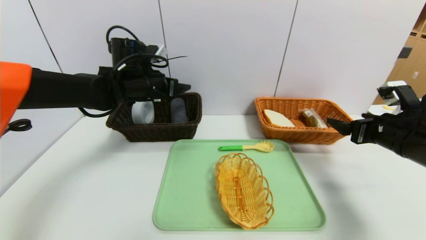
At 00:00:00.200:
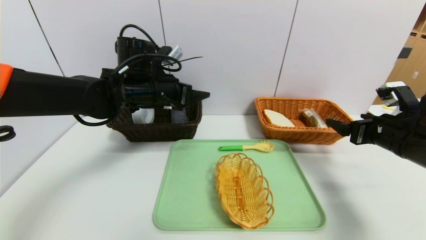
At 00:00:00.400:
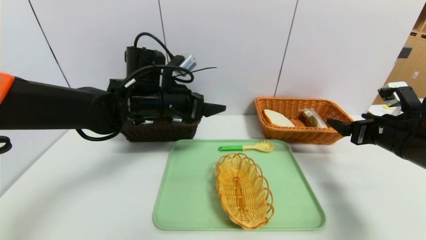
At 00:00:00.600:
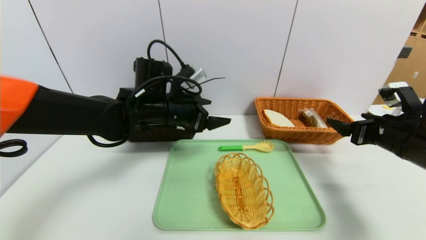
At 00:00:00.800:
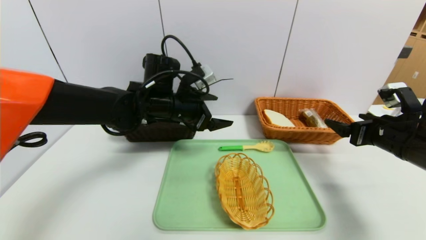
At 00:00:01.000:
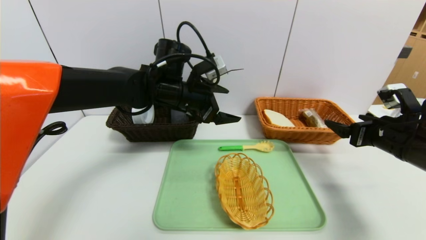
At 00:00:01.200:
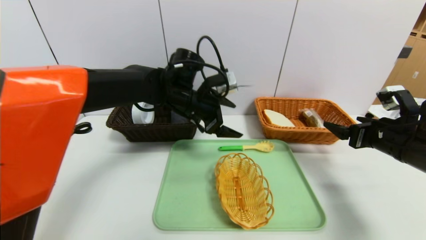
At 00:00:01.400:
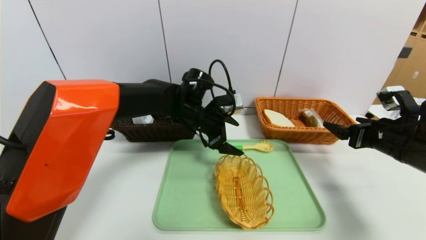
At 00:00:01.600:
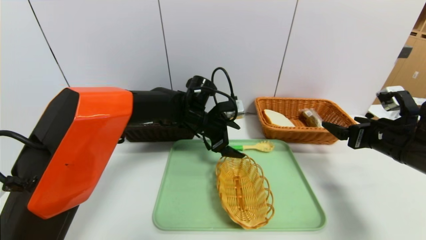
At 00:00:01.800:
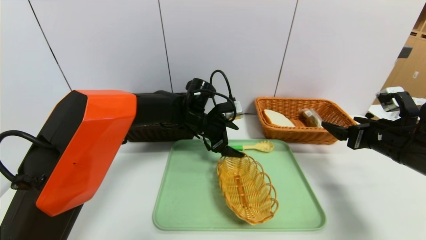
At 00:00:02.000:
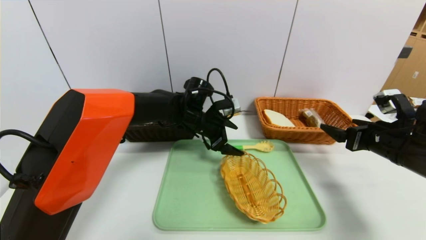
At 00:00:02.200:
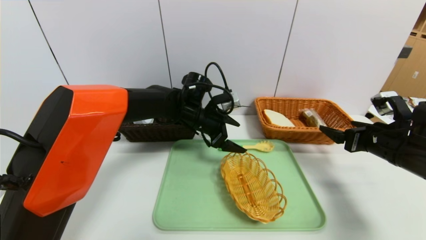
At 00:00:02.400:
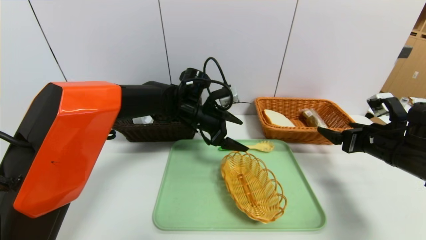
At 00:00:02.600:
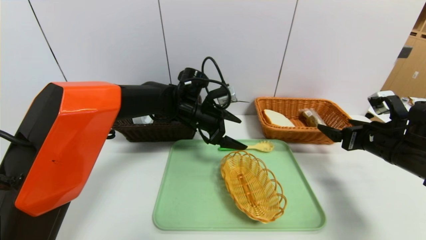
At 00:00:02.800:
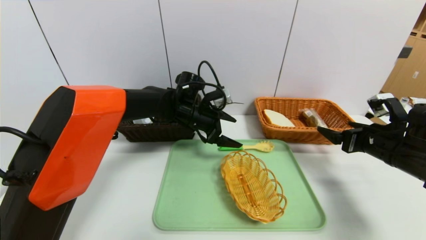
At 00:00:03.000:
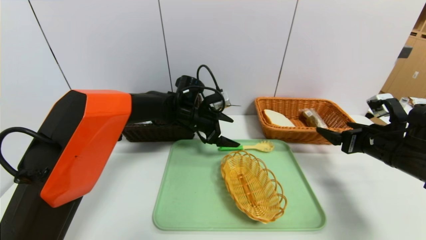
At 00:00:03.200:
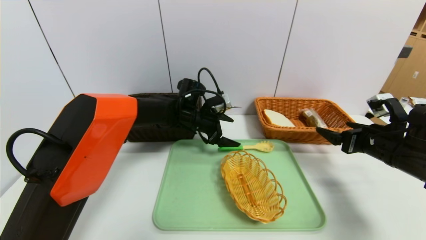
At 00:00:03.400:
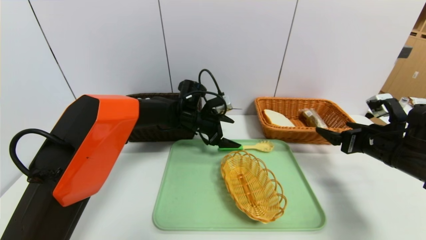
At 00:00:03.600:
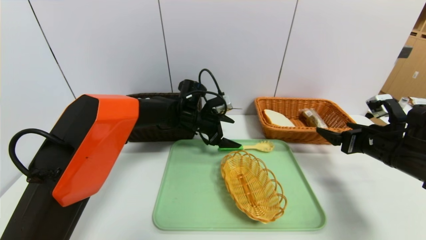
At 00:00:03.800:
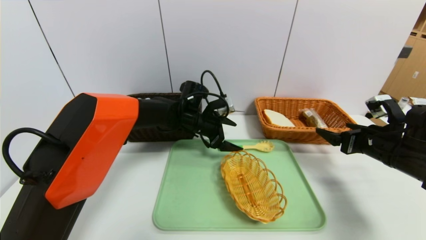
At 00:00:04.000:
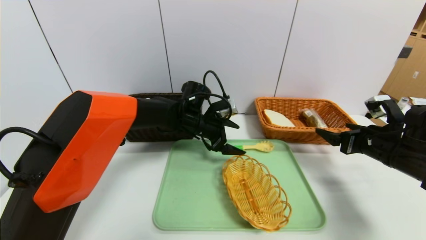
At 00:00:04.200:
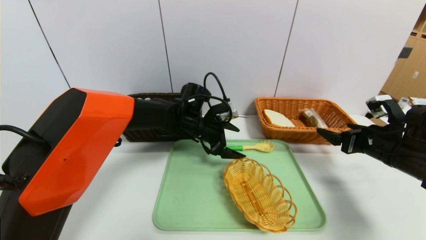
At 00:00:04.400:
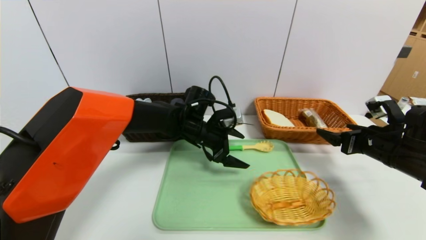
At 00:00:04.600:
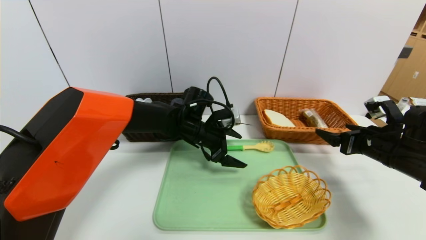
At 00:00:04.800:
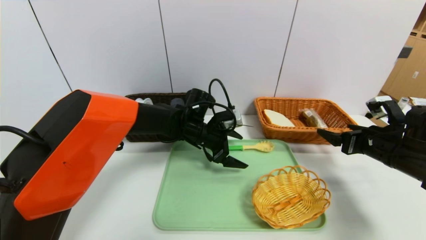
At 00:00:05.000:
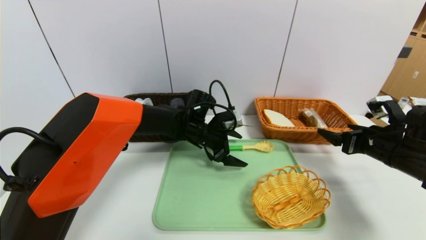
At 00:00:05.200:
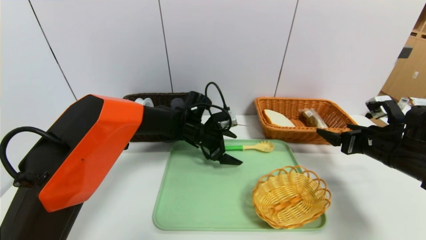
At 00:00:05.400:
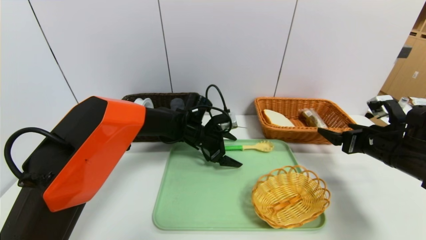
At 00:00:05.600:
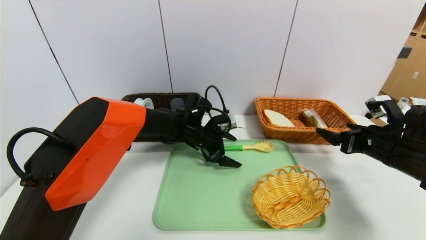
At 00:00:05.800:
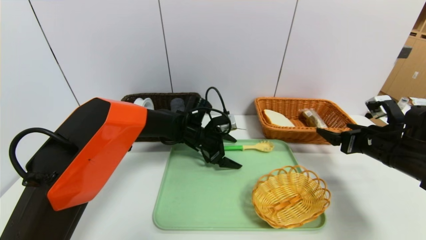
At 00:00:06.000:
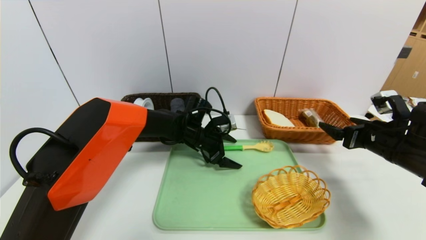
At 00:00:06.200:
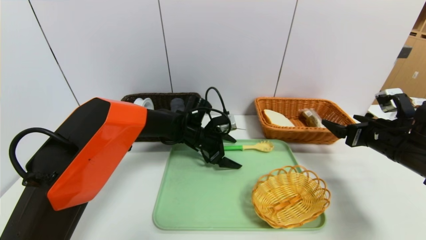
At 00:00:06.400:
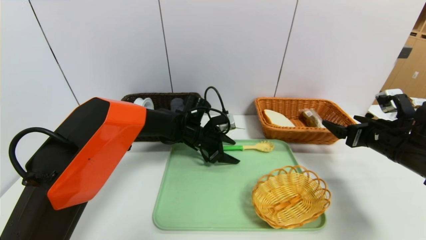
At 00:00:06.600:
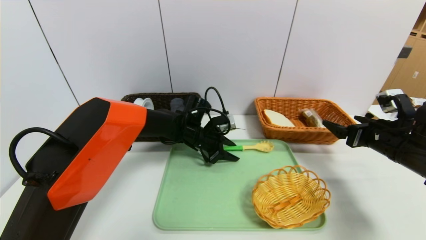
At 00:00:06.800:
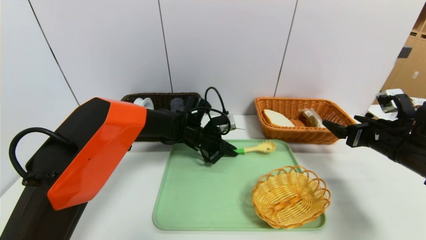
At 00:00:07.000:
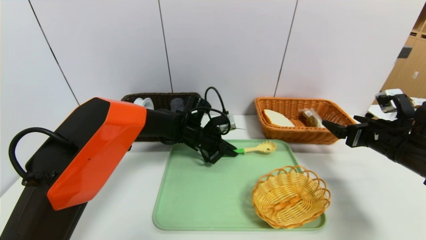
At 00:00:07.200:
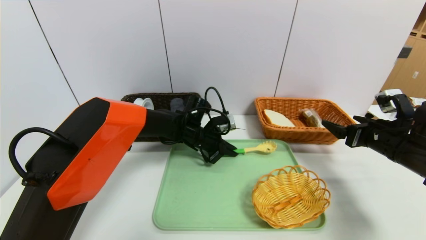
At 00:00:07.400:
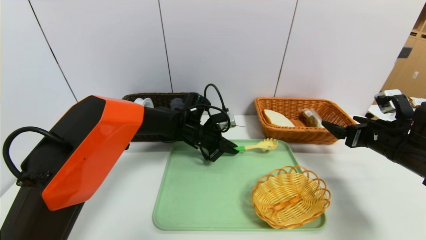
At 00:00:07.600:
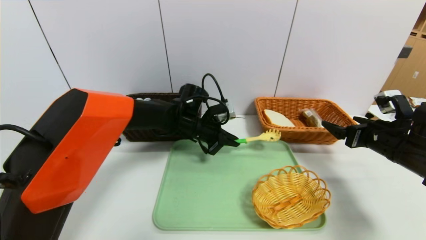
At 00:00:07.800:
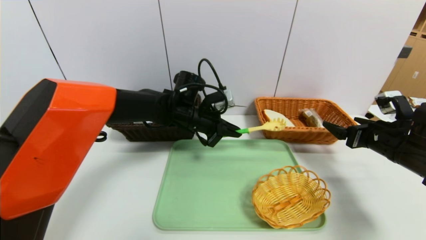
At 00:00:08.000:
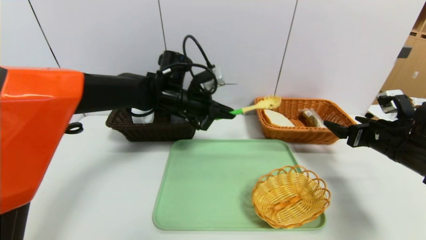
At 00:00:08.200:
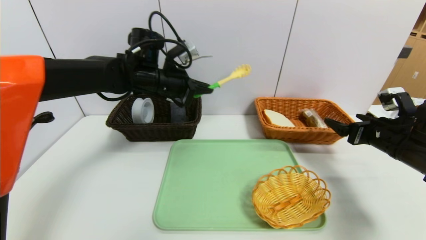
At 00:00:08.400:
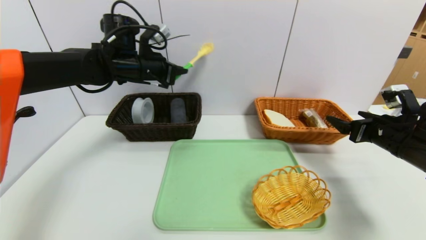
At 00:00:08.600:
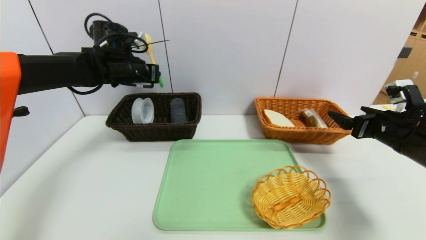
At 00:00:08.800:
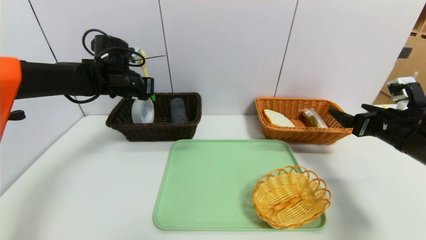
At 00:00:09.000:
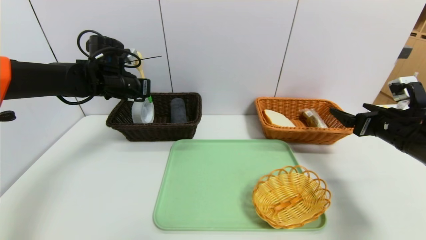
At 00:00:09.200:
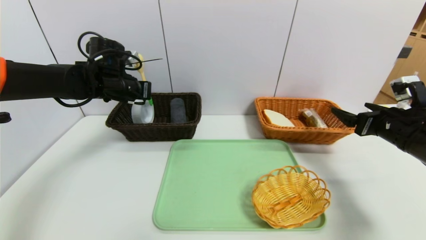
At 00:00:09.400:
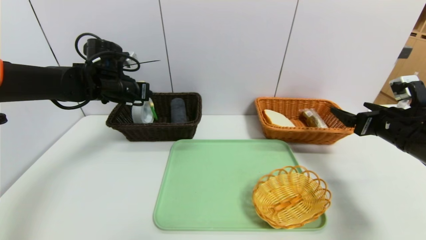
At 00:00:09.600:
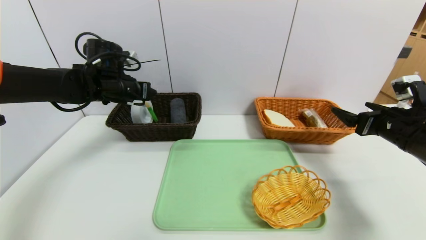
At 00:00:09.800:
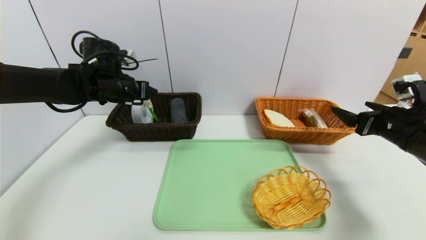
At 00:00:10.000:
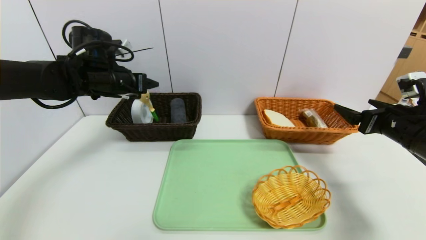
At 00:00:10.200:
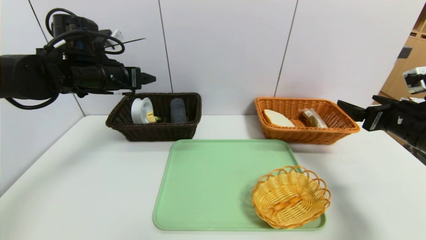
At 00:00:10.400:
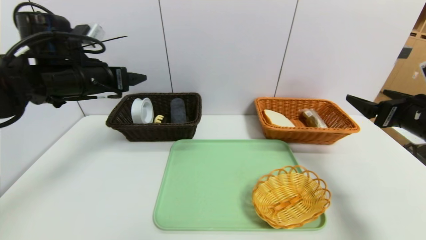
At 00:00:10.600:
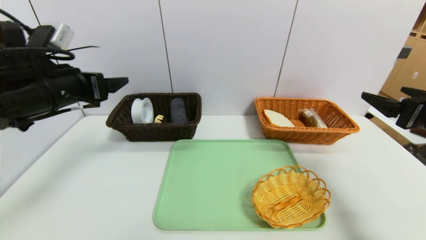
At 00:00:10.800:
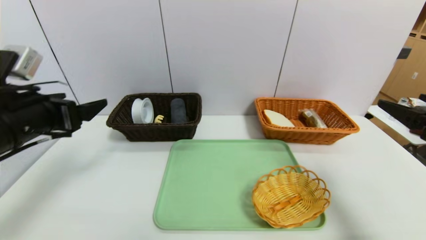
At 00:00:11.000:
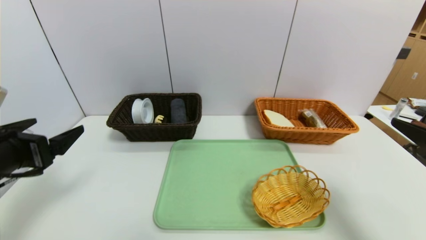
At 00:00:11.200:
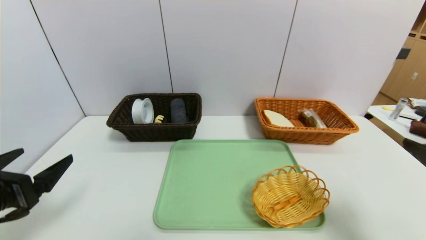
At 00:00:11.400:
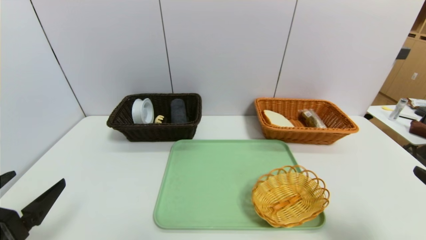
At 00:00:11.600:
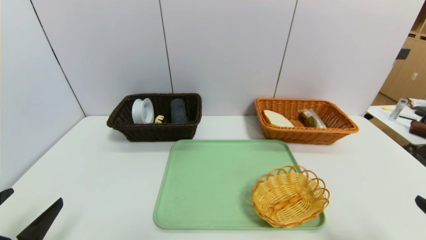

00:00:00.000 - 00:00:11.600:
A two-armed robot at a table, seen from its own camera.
Task of the whole recording: place the food in the right basket with the right gripper, and place the non food items in the left basket with the left gripper.
Step, 00:00:00.000 - 00:00:10.200: Grasp the brush and put it in the left basket.
00:00:00.000 - 00:00:01.400: The left gripper goes about 15 cm to the right and downward.
00:00:01.400 - 00:00:02.800: The grippers move only a little.
00:00:02.800 - 00:00:04.400: The grippers move only a little.
00:00:04.400 - 00:00:05.800: The grippers make only small movements.
00:00:05.800 - 00:00:07.200: The left gripper closes its fingers.
00:00:07.200 - 00:00:08.800: The left gripper goes approximately 25 cm to the left and upward.
00:00:08.800 - 00:00:10.200: The left gripper is displaced backward by approximately 5 cm, and opens.
00:00:10.200 - 00:00:11.600: The right gripper shifts about 20 cm backward. The left gripper goes some 35 cm backward and downward.

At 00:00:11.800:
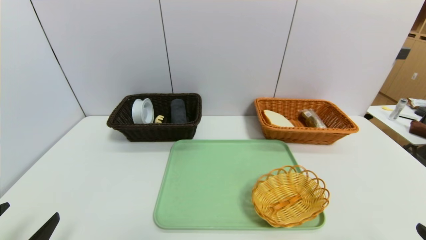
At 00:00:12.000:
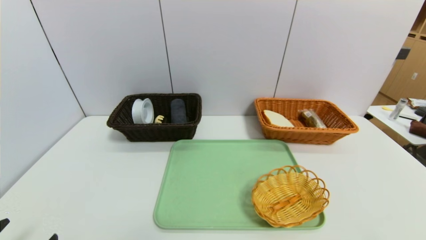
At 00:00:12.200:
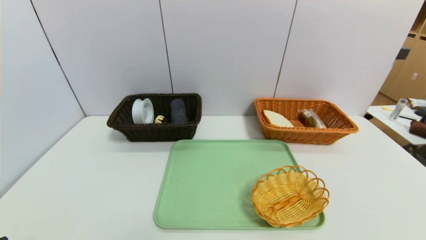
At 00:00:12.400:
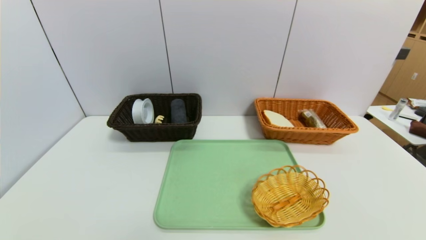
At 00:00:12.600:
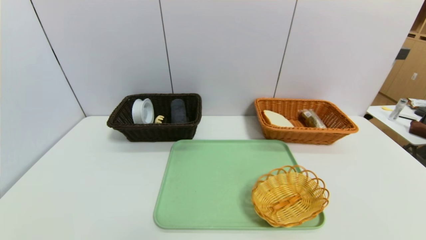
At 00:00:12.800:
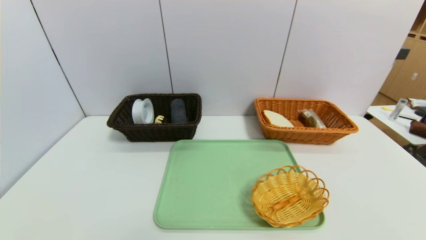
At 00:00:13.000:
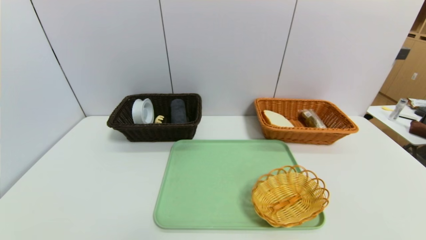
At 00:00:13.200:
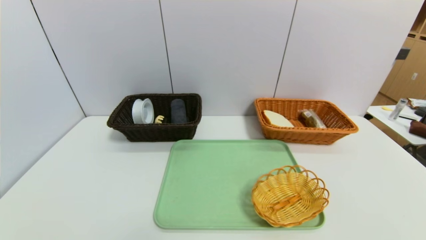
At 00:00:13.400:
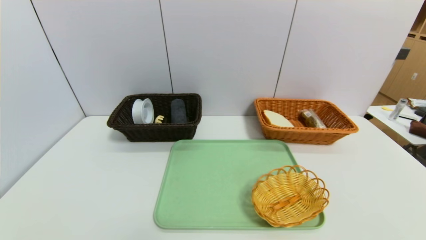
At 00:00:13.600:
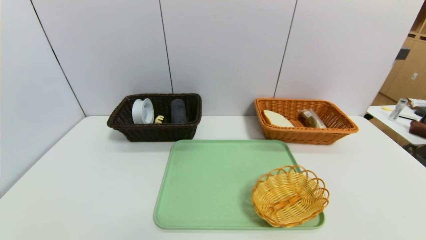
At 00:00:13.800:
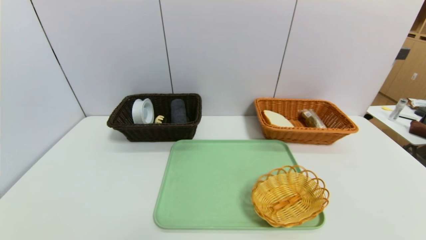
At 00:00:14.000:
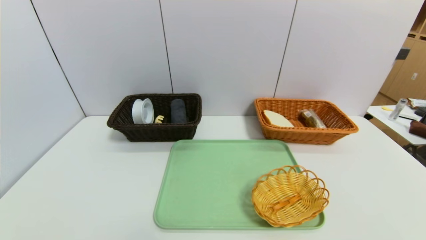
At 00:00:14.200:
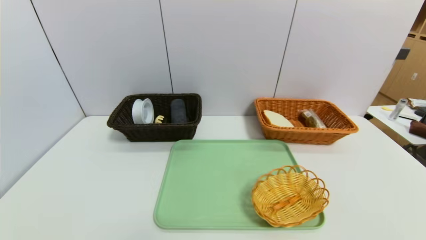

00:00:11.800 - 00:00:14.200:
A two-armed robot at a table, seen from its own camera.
Task of the whole recording: place the food in the right basket with the right gripper, and place the non food items in the left basket with the left gripper.
00:00:11.800 - 00:00:13.000: The left gripper moves backward and downward, approximately 10 cm.
